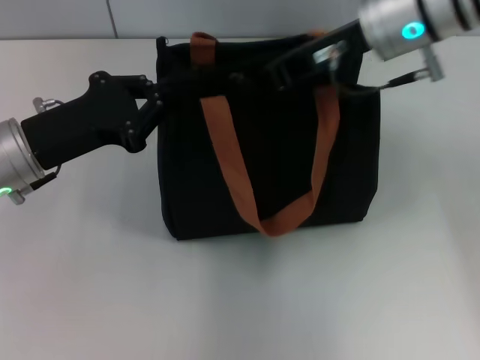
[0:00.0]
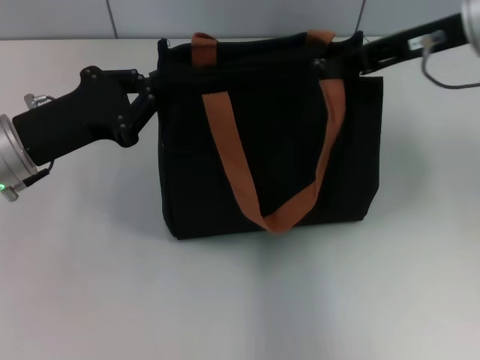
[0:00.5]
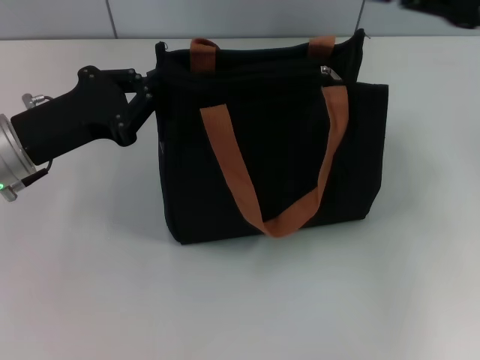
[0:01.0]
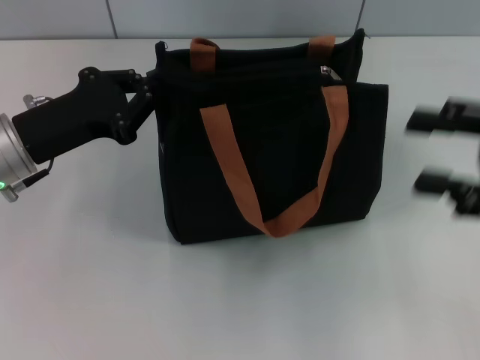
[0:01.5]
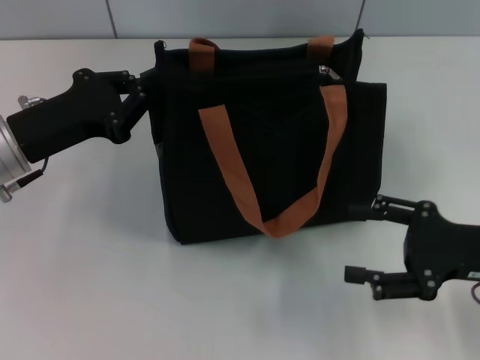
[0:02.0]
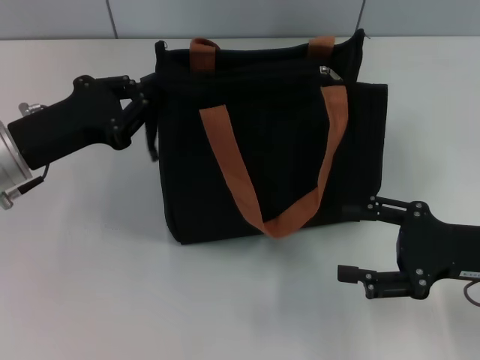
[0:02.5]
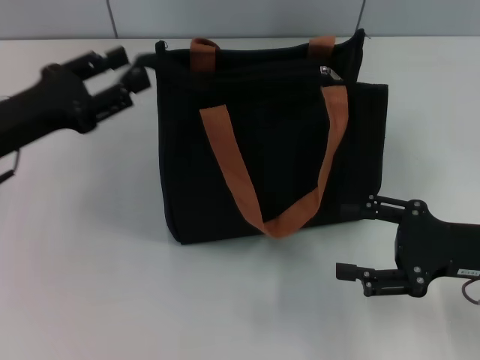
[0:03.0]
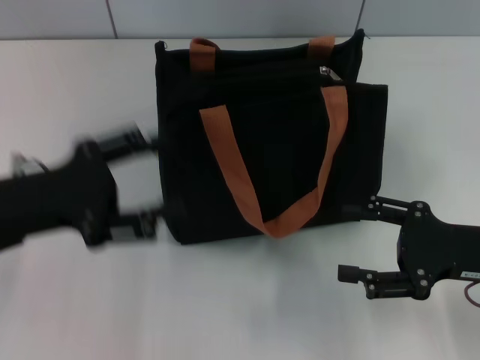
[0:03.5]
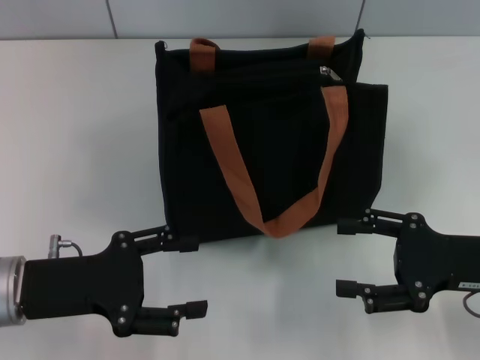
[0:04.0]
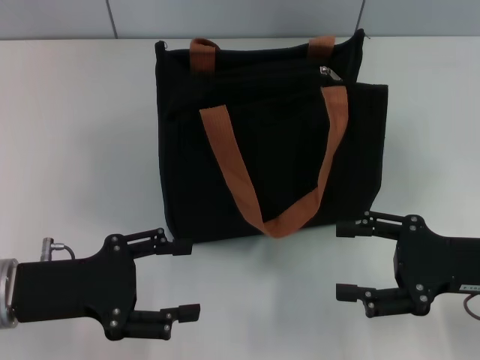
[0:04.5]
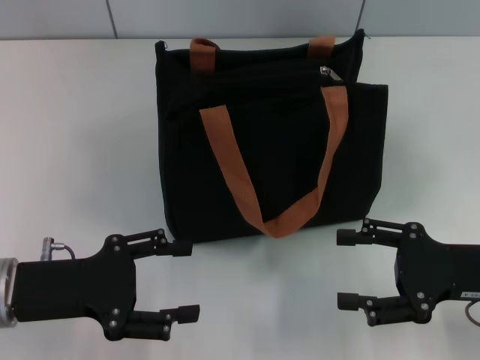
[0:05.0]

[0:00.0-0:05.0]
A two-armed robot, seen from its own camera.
0.0 to 2.5 s: The right gripper heads backward, downward and to the right, covering approximately 25 cm, and opens up.
2.5 to 5.0 s: The left gripper travels backward by approximately 10 cm, and opens.

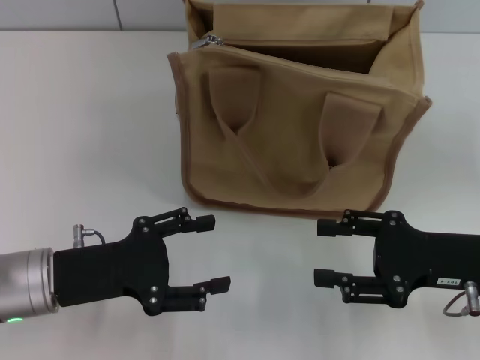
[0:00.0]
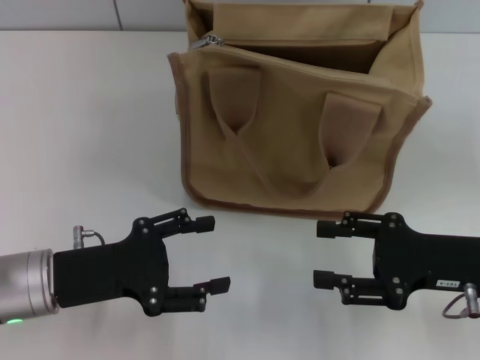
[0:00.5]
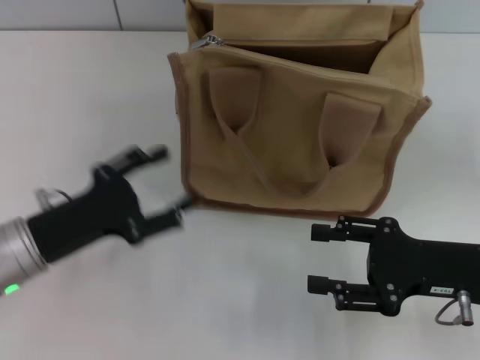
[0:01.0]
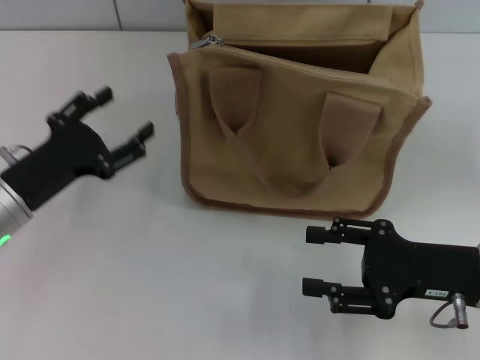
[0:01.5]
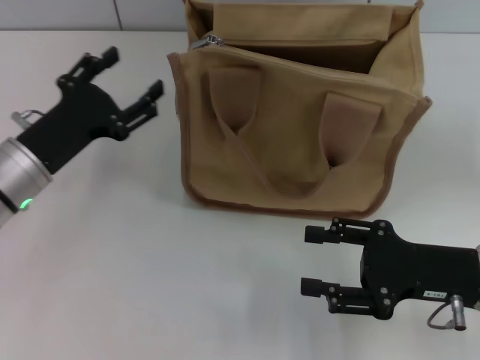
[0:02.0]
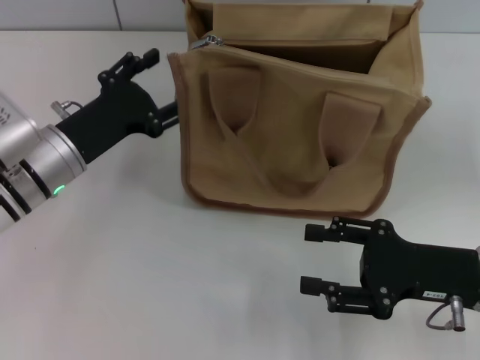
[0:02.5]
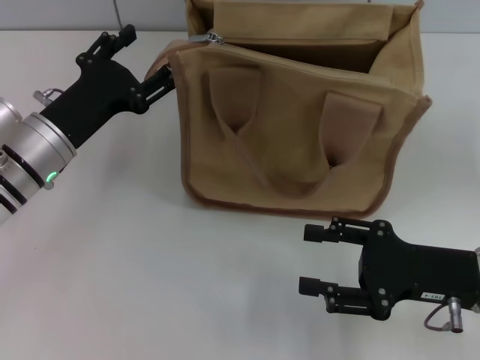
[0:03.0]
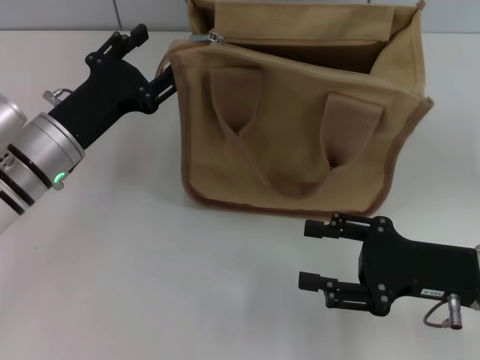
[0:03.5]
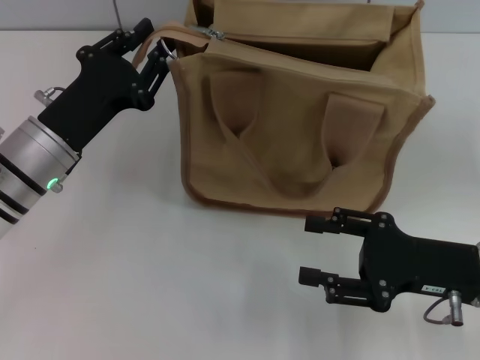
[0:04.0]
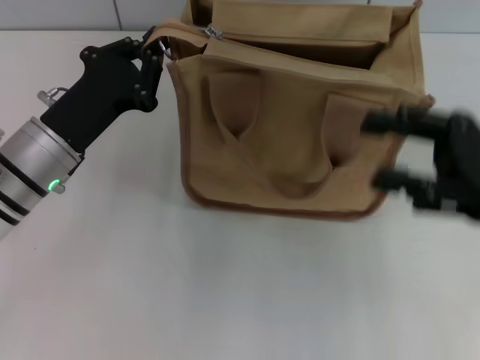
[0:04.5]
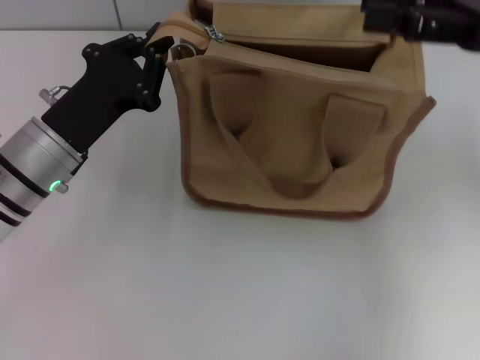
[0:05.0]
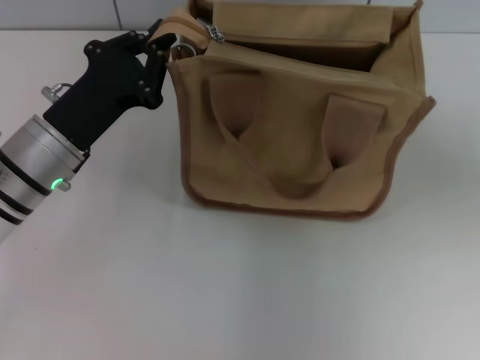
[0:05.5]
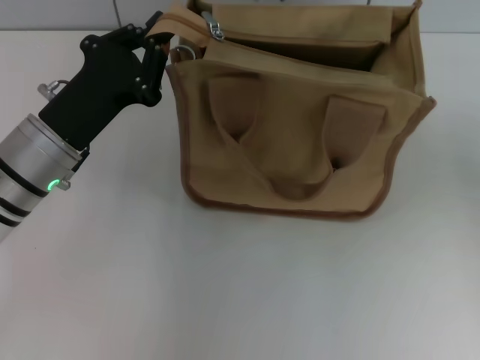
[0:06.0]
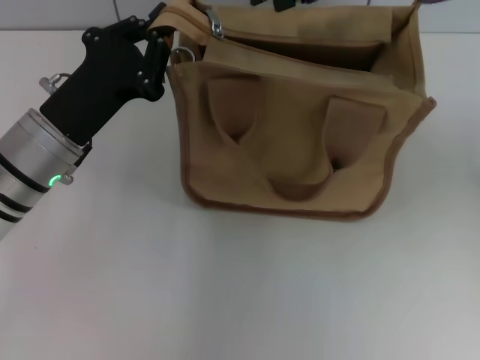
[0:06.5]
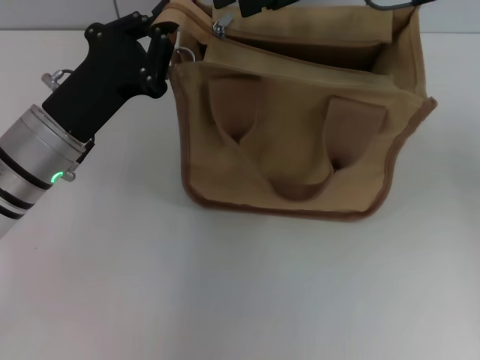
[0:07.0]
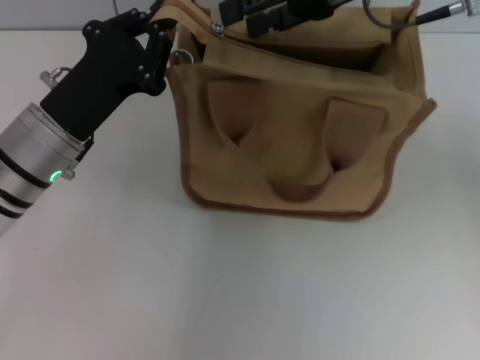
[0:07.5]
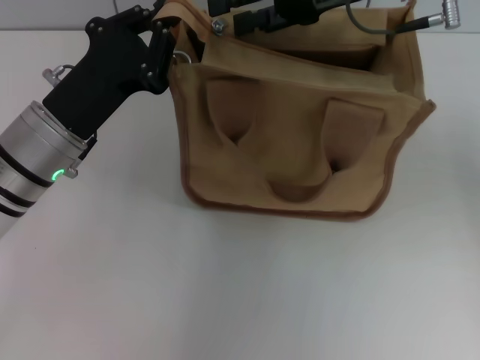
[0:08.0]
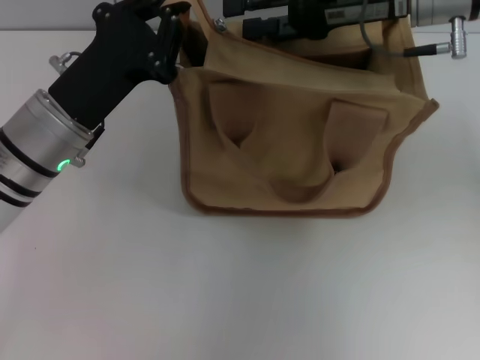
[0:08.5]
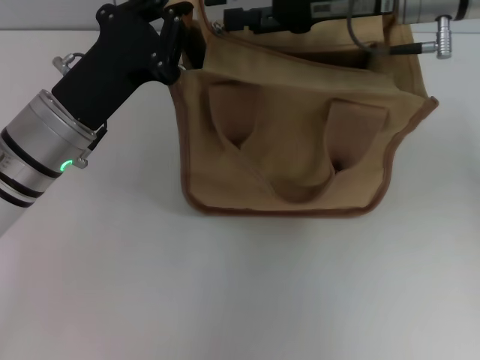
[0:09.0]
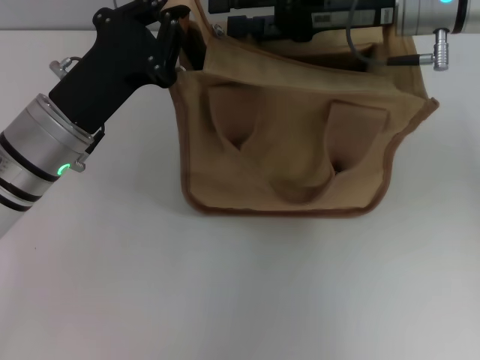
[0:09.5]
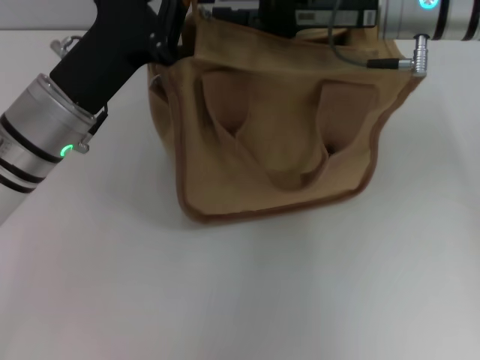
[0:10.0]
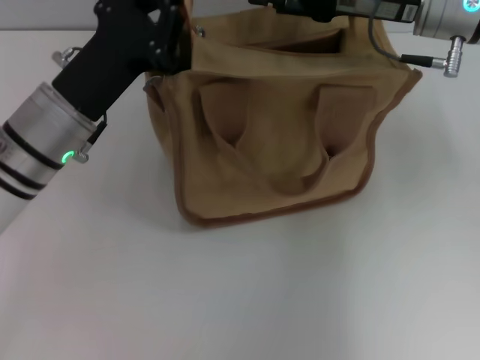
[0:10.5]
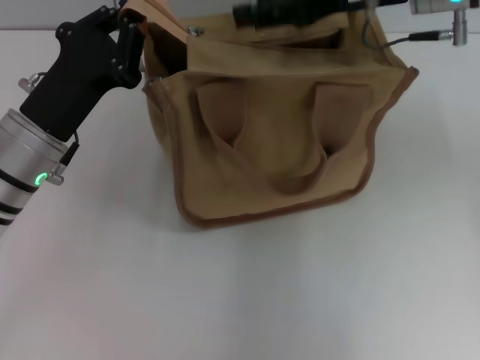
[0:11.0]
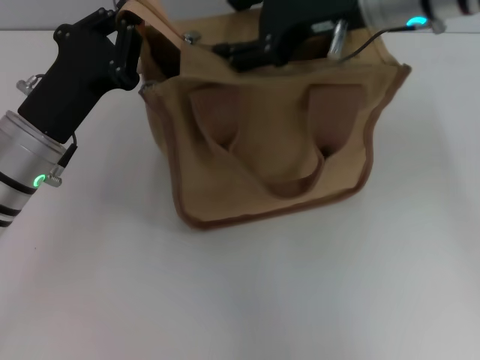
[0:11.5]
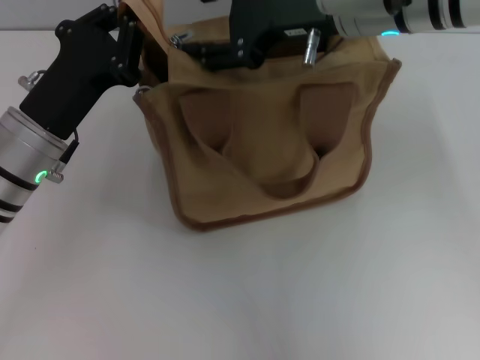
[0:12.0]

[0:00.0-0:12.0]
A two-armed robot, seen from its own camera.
0.0 to 2.0 s: The left gripper heads forward, covering about 10 cm.
2.0 to 4.0 s: The grippers move only a little.
4.0 to 6.0 s: The left gripper closes; the right gripper heads upward and forward, covering roughly 35 cm.
6.0 to 8.0 s: The right gripper goes about 10 cm downward.
8.0 to 10.0 s: The grippers move only a little.
10.0 to 12.0 s: The right gripper shifts by approximately 10 cm.

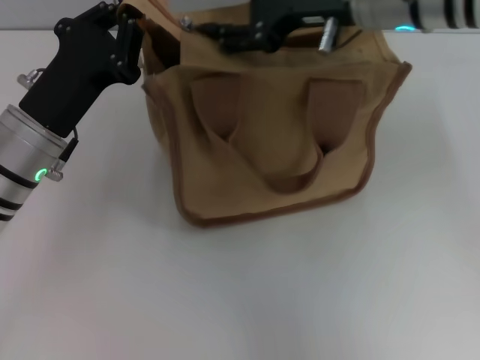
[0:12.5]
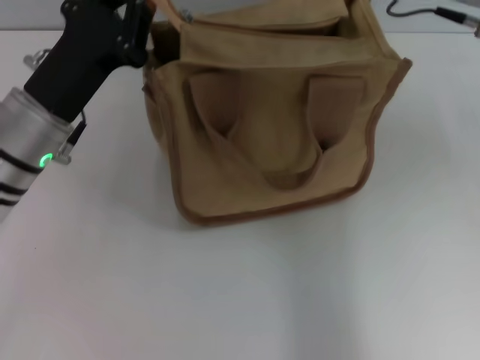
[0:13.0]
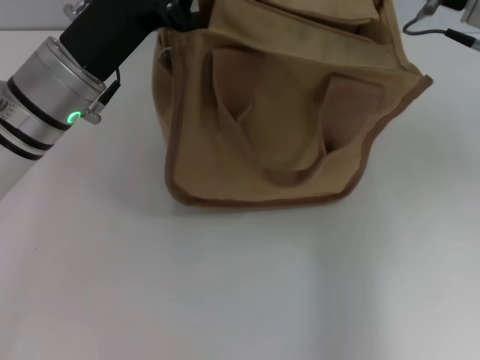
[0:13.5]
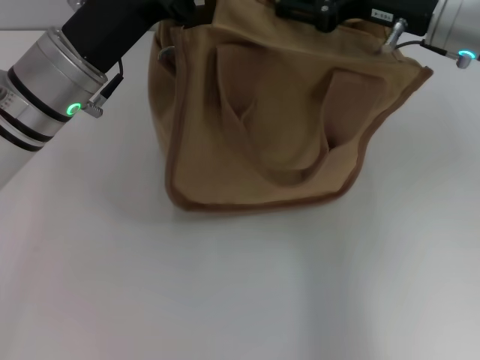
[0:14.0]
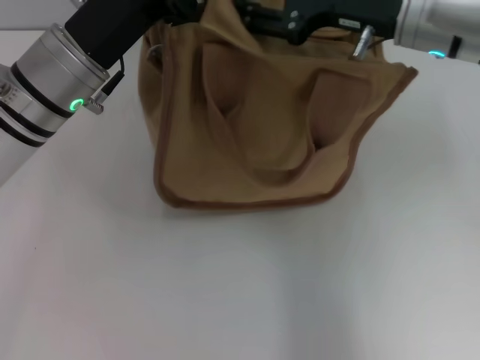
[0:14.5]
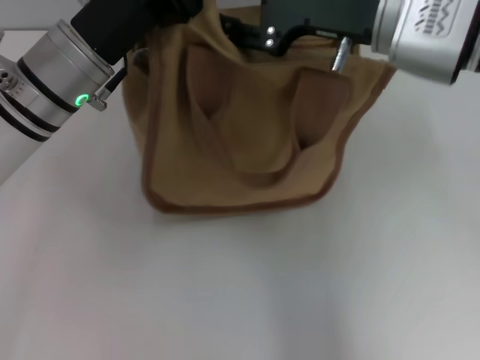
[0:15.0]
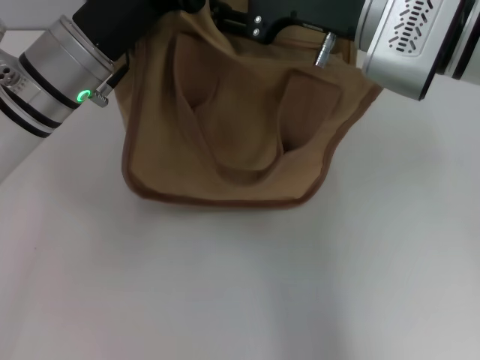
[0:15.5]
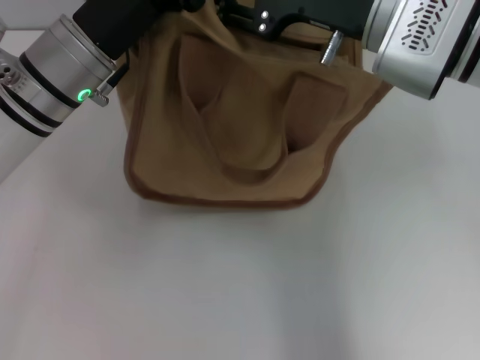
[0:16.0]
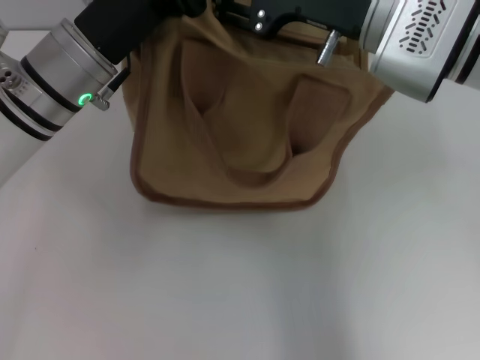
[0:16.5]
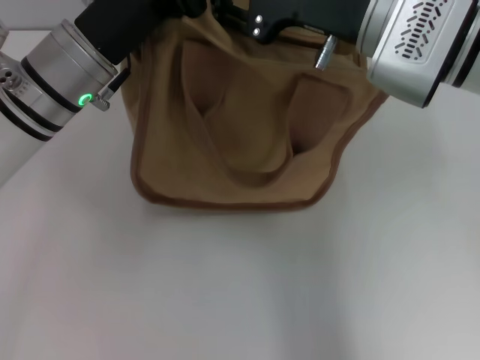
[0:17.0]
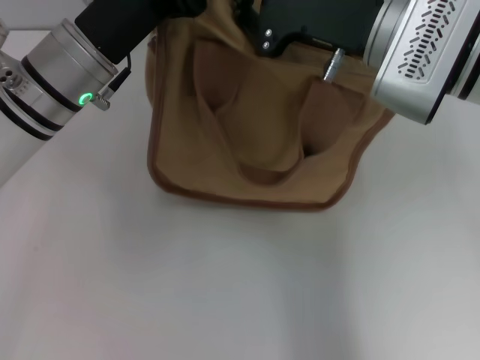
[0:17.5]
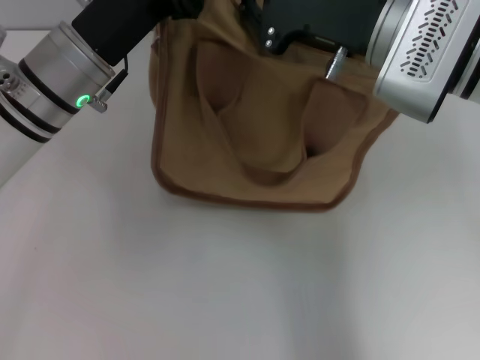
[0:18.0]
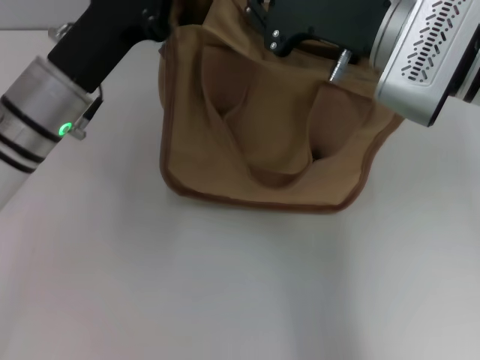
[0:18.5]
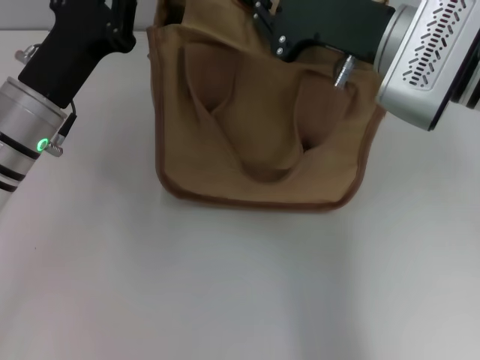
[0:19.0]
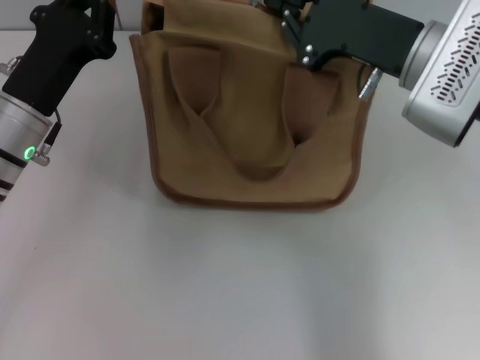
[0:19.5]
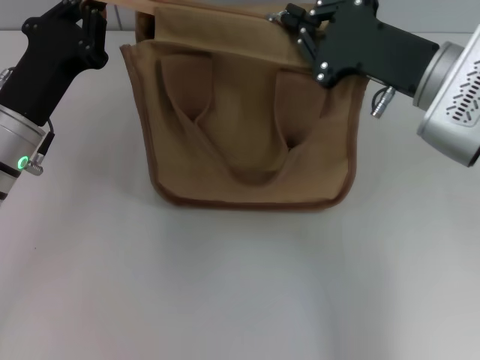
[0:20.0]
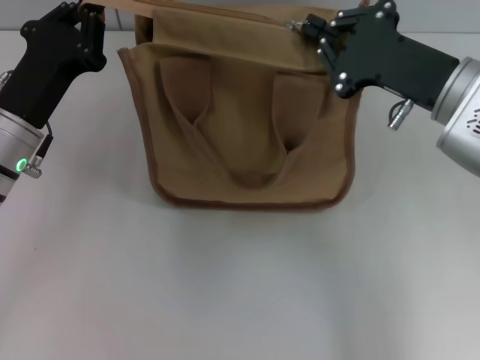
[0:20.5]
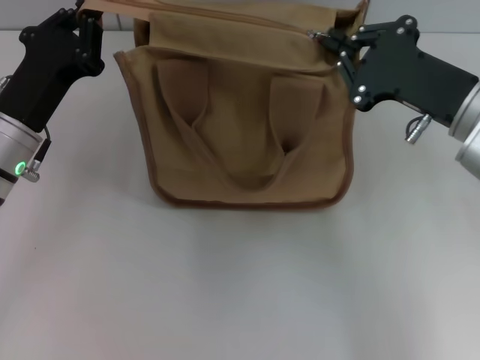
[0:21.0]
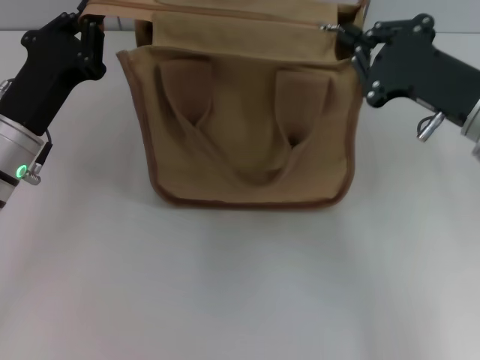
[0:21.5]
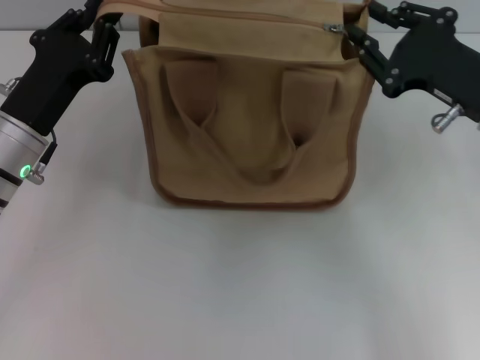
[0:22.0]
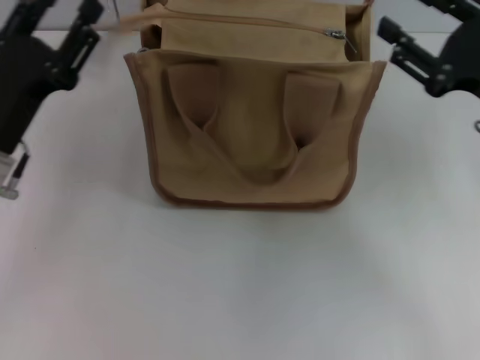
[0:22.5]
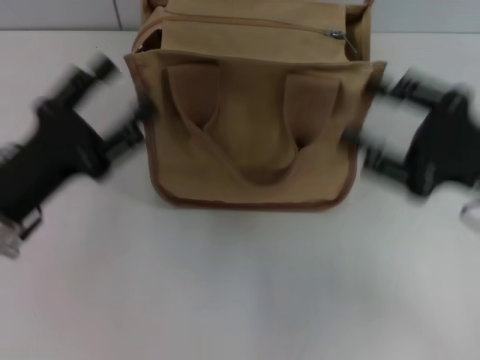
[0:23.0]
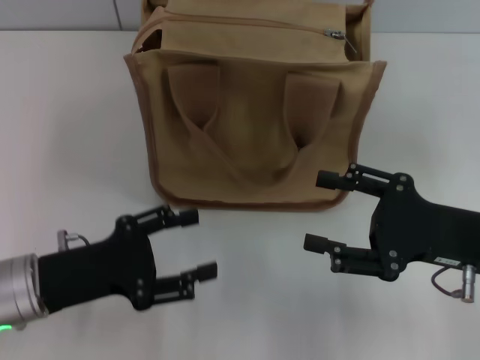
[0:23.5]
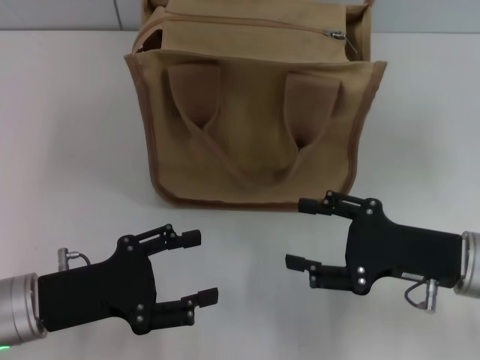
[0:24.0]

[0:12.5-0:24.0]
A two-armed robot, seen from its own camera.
Step, 12.5 to 21.5 s: Pull up the zipper with your right hand.
12.5 to 14.5 s: The left gripper heads upward, covering roughly 5 cm.
14.5 to 16.5 s: The grippers stay close to where they were, moving slightly.
16.5 to 18.5 s: The right gripper closes its fingers.
18.5 to 20.0 s: The left gripper shifts by roughly 5 cm; the right gripper ends up about 5 cm from where it was.
20.0 to 22.0 s: The right gripper moves to the right, roughly 5 cm.
22.0 to 24.0 s: The right gripper is displaced downward and backward by roughly 10 cm, and opens up, while the left gripper shifts roughly 10 cm backward, and opens its fingers.
